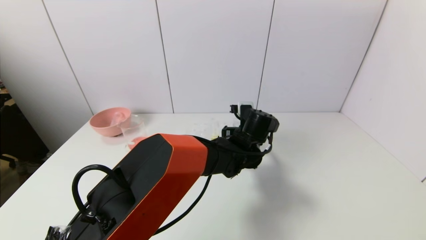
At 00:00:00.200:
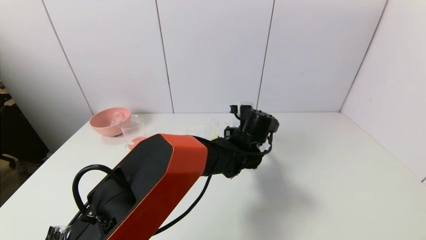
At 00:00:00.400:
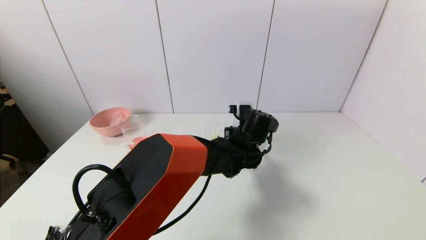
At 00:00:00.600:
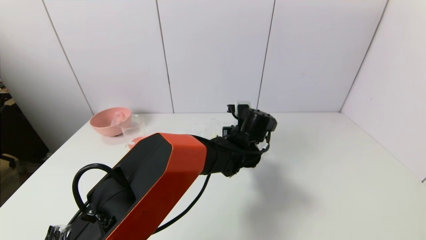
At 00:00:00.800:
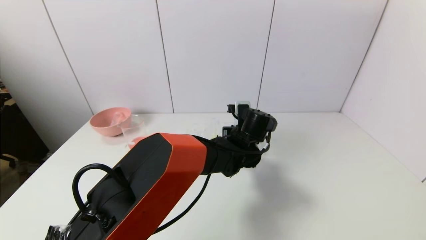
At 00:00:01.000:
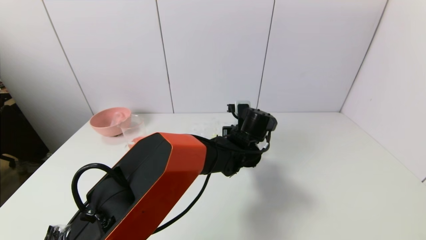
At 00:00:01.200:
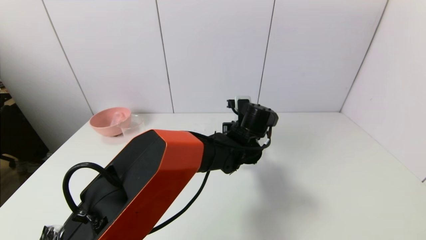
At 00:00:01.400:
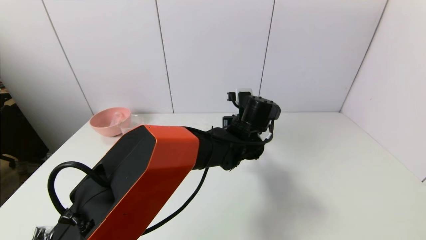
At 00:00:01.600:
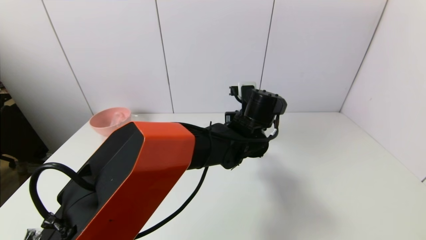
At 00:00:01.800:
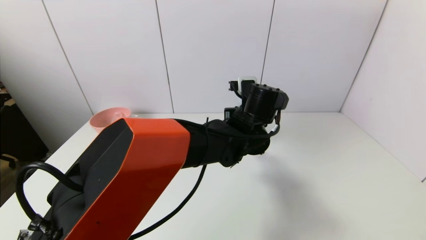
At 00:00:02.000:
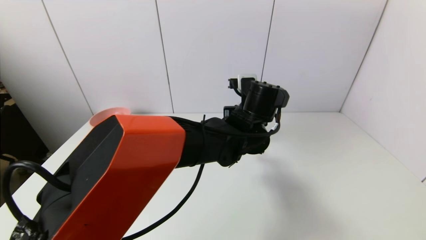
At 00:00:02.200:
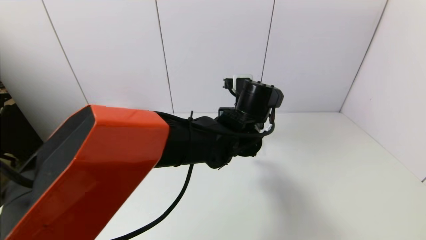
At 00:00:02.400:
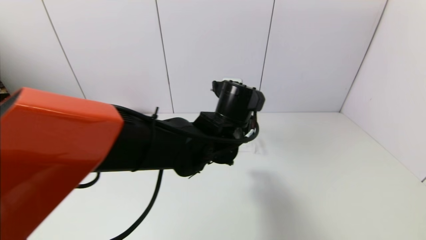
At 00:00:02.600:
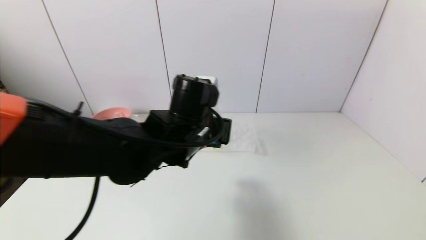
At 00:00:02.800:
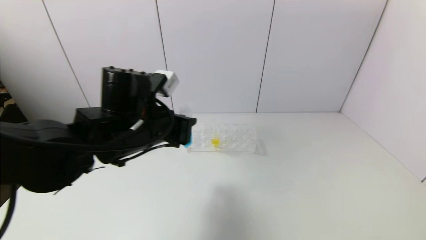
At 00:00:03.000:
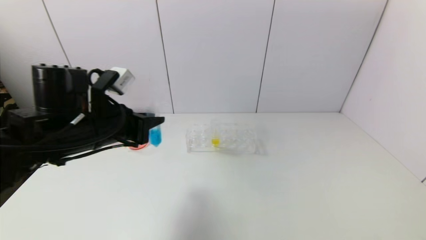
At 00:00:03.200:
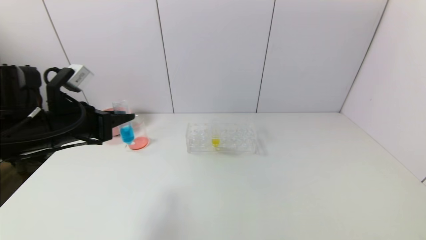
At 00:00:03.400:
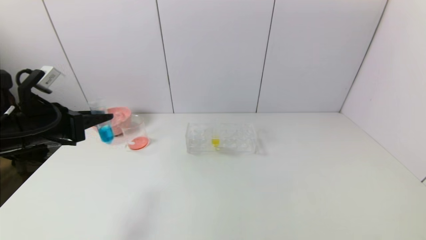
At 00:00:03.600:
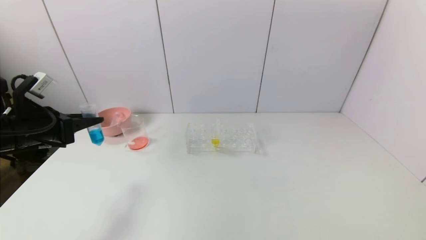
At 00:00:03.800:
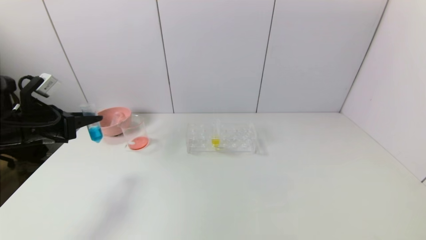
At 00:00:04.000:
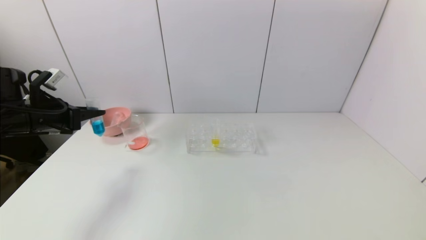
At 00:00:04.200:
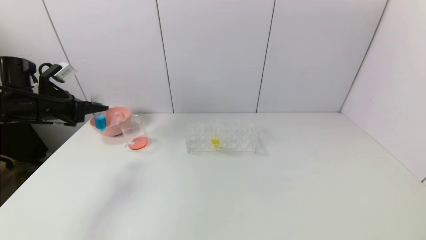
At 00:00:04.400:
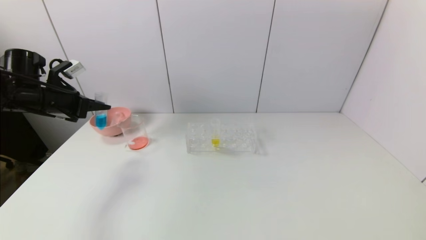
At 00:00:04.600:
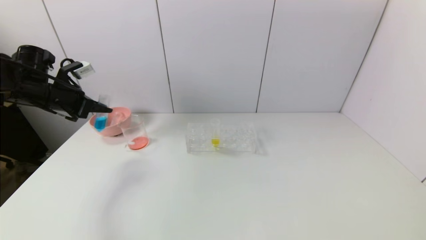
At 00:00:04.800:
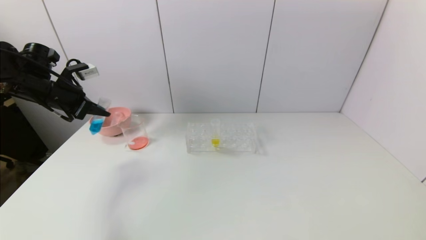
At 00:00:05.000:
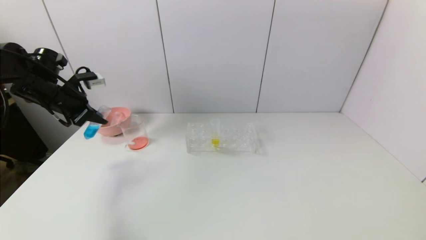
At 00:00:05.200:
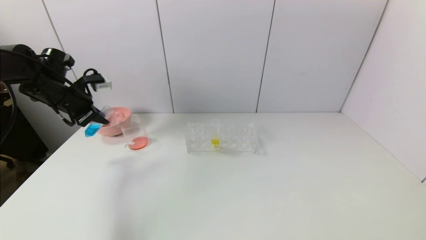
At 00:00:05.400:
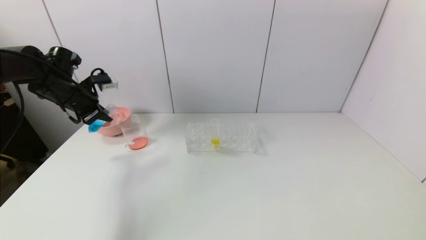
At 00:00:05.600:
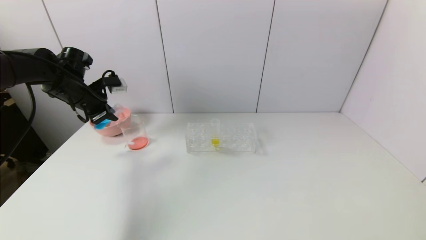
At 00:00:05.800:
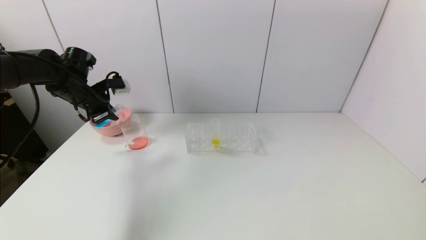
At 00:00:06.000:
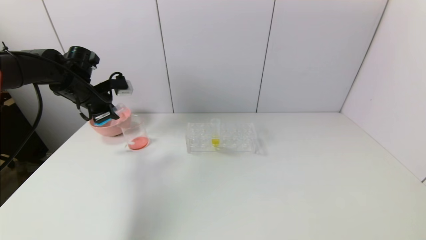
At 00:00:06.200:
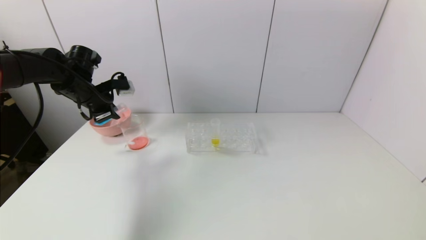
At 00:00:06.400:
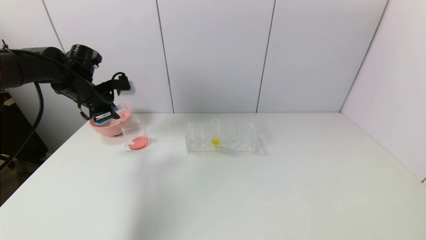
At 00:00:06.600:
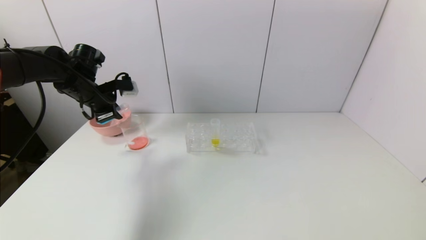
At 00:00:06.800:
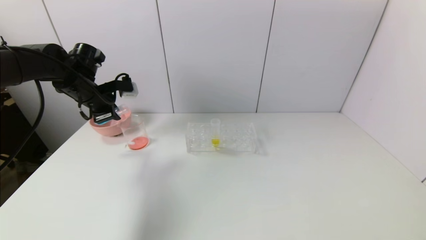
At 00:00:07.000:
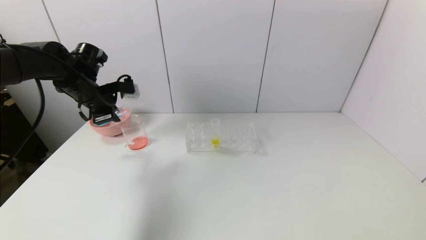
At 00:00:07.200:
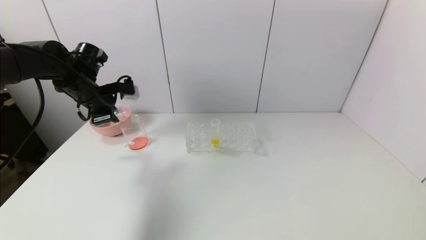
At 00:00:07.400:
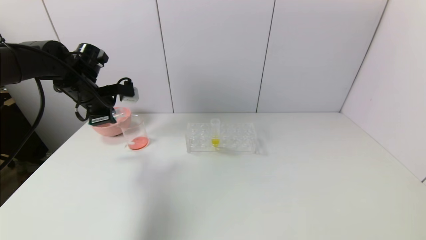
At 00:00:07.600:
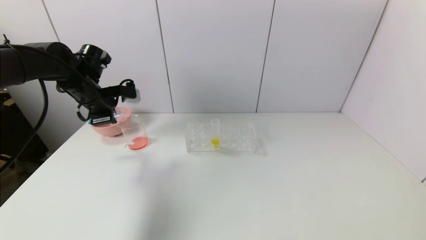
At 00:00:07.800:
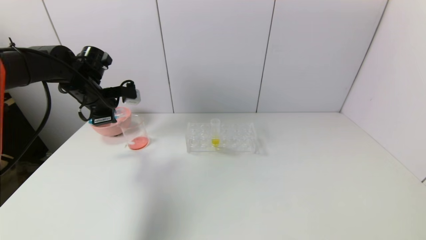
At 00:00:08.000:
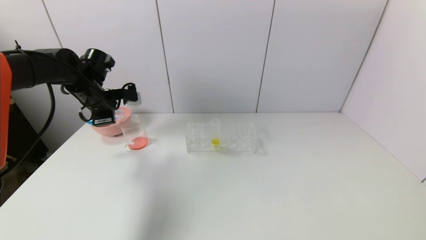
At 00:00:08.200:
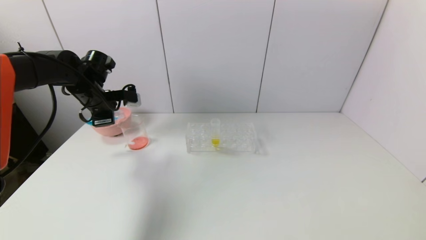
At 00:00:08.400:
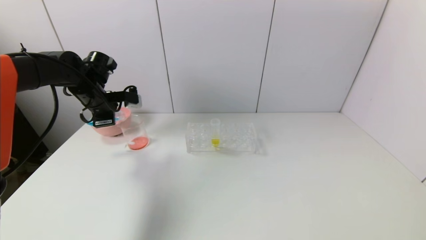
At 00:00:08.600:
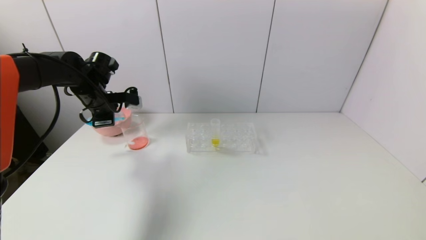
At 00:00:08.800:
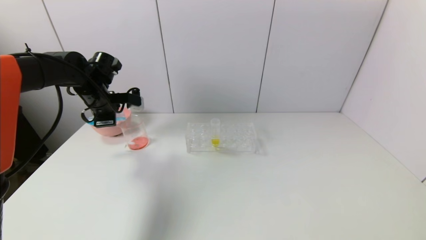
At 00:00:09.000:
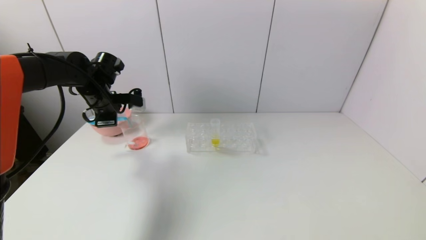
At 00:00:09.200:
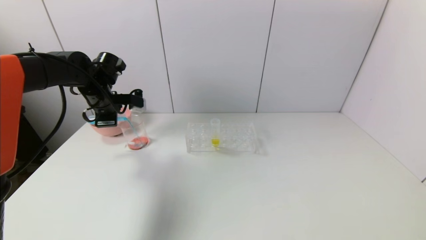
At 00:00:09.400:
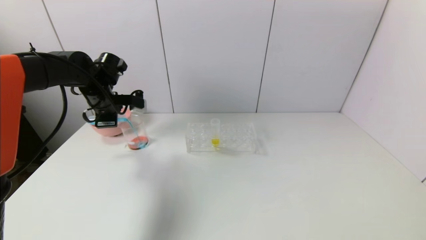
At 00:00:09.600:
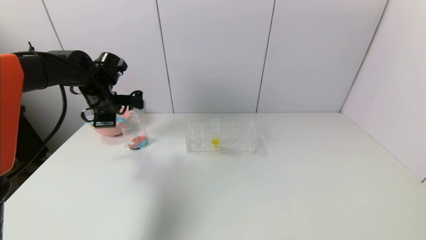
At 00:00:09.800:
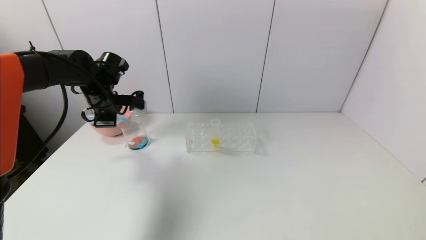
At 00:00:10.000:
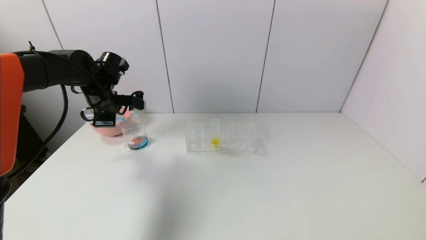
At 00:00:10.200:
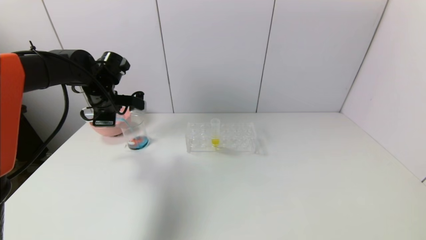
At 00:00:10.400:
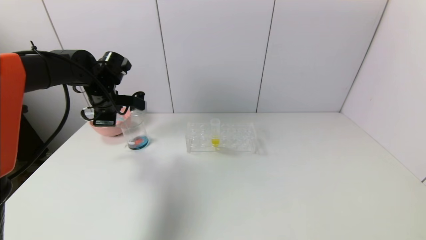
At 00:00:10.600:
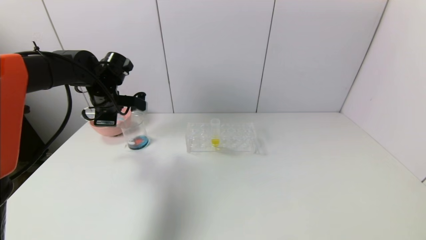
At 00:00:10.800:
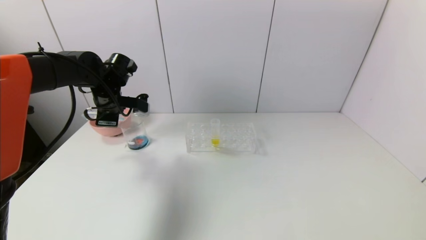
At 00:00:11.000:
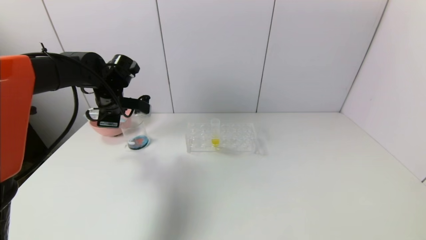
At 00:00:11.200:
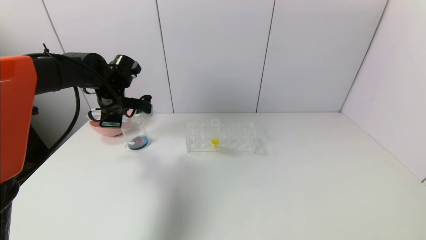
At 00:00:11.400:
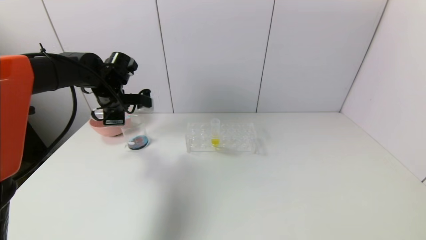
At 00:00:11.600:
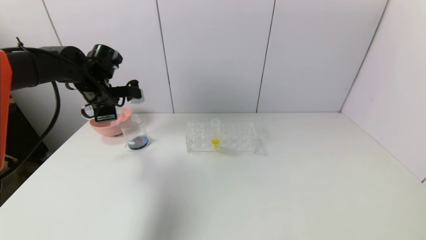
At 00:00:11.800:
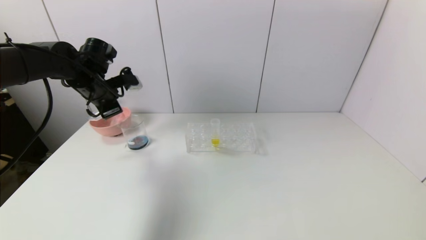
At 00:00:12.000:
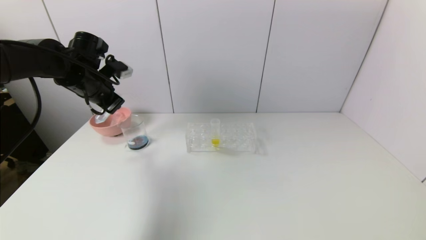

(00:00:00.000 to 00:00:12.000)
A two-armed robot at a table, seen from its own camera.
Task of the whole recording: pick up the test tube with red pigment and the test tube with blue pigment by grippers and pour them into the container.
Step, 00:00:00.800 - 00:00:11.600: Pour the blue reagent into the graduated cylinder with the left gripper.
00:00:00.000 - 00:00:01.600: The left gripper shifts approximately 5 cm upward, and closes up.
00:00:01.600 - 00:00:03.000: The left gripper is displaced to the left by approximately 30 cm.
00:00:03.000 - 00:00:04.400: The left gripper shifts about 20 cm to the left and forward.
00:00:04.400 - 00:00:06.000: The left gripper goes roughly 10 cm to the right and forward.
00:00:06.000 - 00:00:07.600: There are only small adjustments of the grippers.
00:00:07.600 - 00:00:09.000: The grippers make only small movements.
00:00:09.000 - 00:00:10.400: There are only small adjustments of the grippers.

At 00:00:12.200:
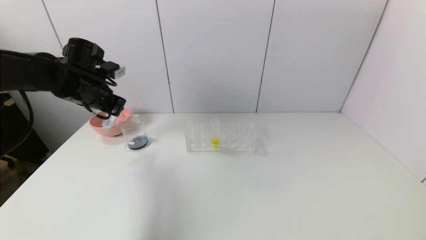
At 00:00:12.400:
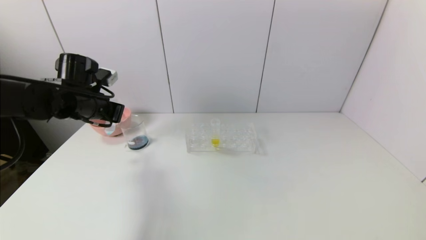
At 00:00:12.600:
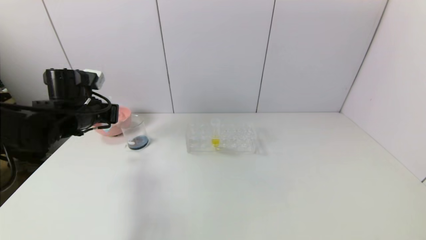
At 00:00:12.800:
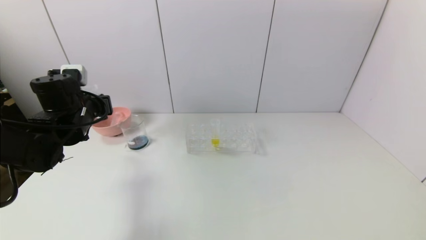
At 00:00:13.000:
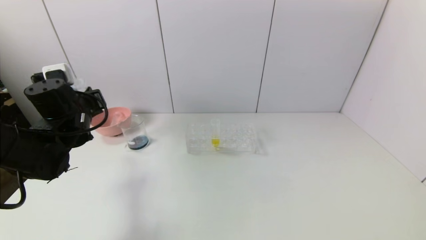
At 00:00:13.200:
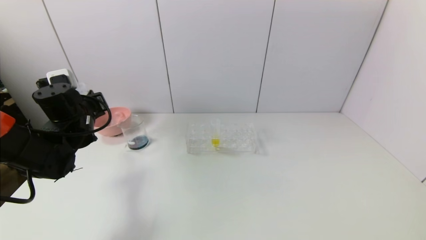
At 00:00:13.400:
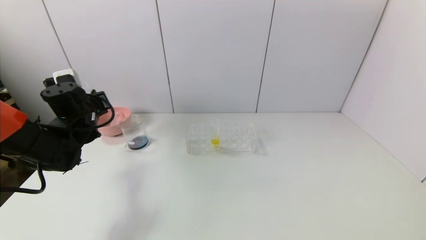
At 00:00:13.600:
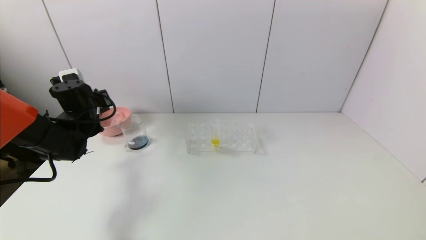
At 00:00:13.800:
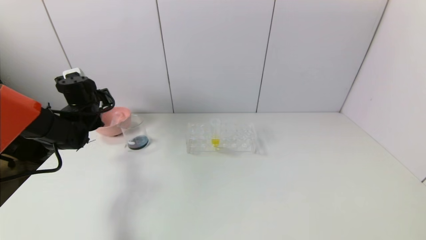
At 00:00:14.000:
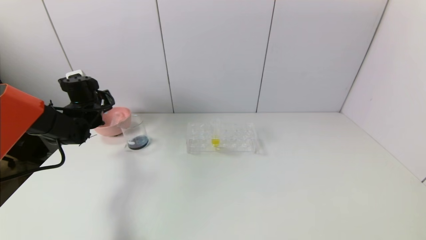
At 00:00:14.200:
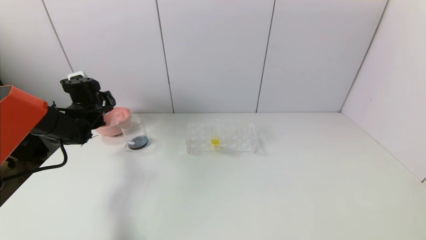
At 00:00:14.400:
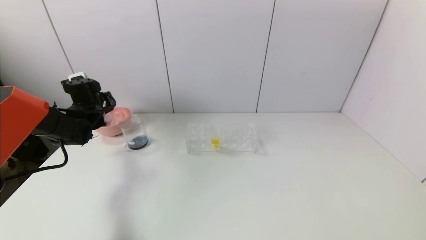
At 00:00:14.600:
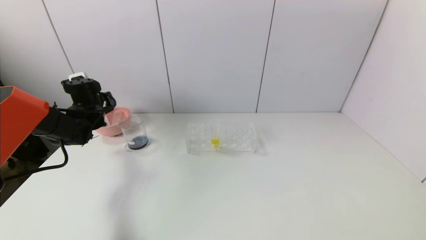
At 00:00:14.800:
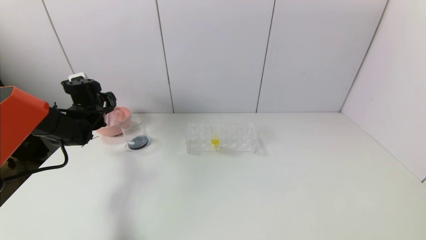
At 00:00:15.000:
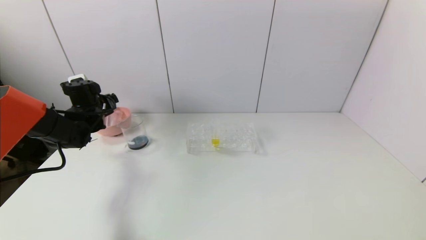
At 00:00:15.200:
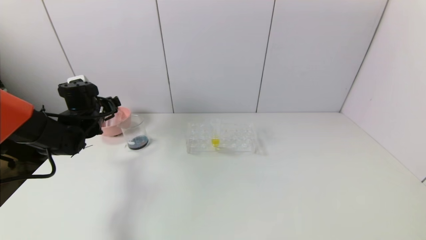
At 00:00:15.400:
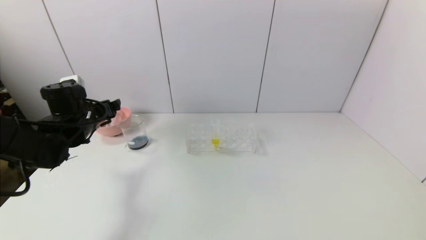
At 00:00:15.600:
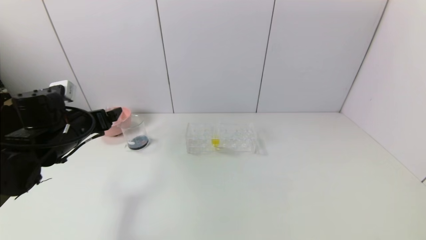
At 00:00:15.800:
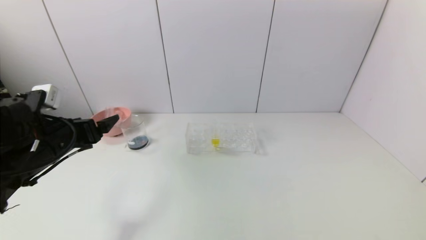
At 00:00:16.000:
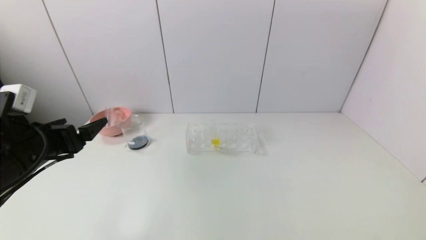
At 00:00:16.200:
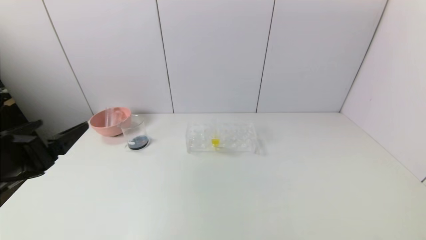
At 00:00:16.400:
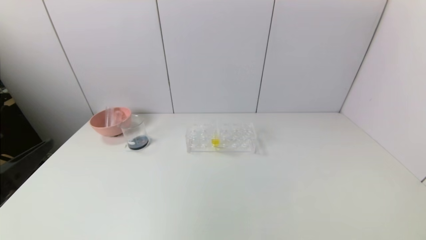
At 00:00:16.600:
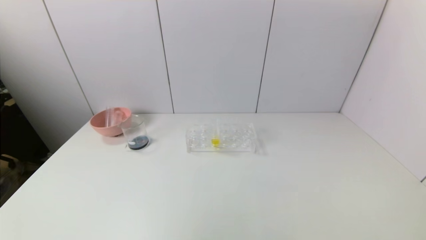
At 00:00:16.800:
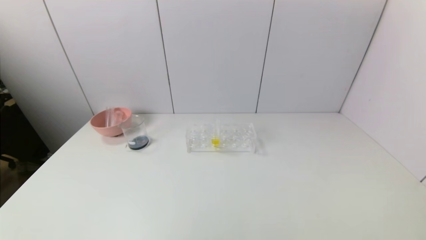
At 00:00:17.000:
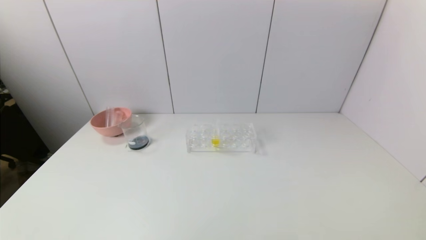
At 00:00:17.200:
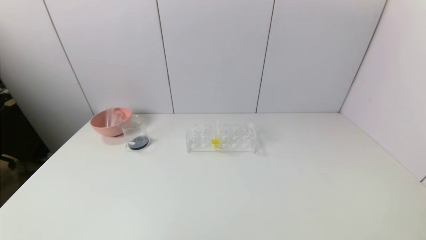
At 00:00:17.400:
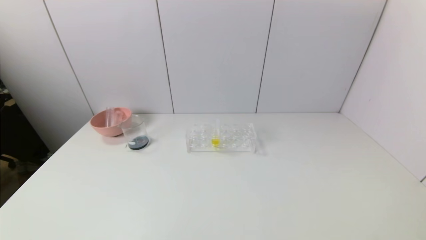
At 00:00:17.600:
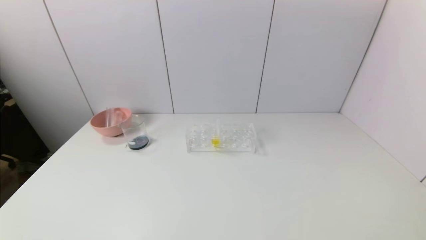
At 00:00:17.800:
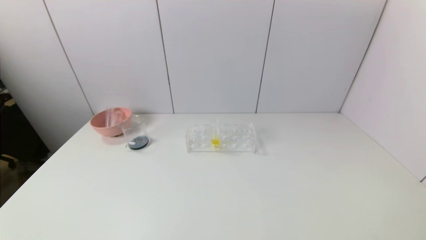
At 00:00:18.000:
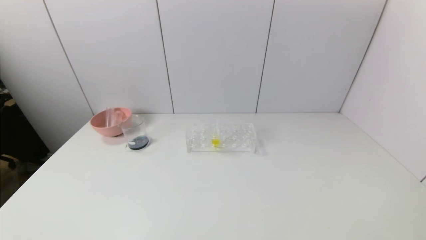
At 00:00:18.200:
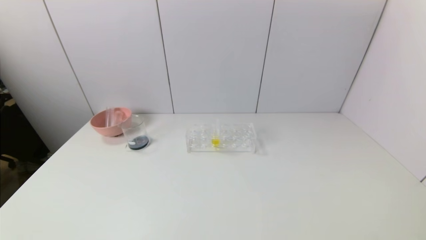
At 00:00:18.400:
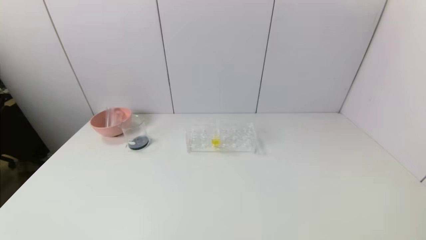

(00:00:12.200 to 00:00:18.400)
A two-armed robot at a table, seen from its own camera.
Task of the whole recording: pick up the test tube with red pigment and the test tube with blue pigment by grippers and pour them into the container.
Step, 00:00:12.200 - 00:00:14.800: Place the test tube into the bowl with the left gripper.
00:00:12.200 - 00:00:13.800: The left gripper is displaced downward and forward by roughly 10 cm.
00:00:13.800 - 00:00:15.400: The left gripper shifts some 10 cm backward, and opens its fingers.
00:00:15.400 - 00:00:16.800: The left gripper shifts approximately 40 cm backward.
